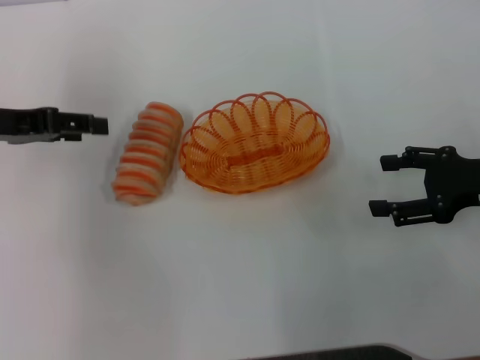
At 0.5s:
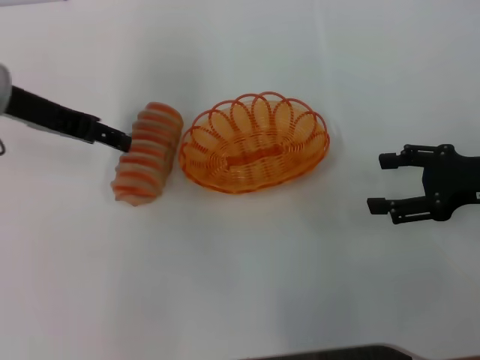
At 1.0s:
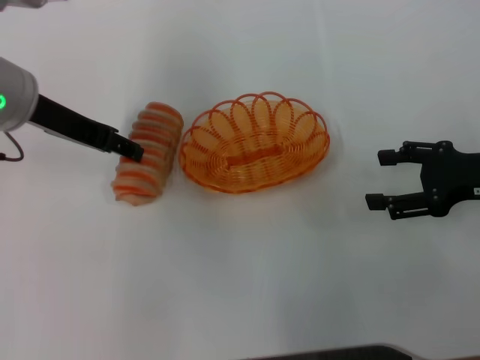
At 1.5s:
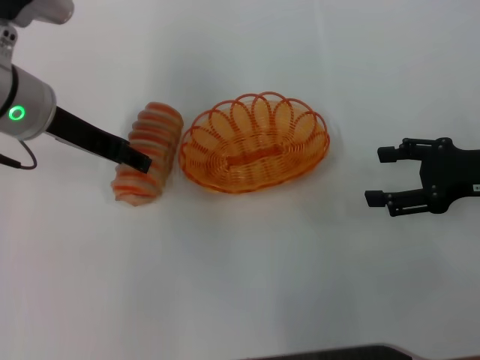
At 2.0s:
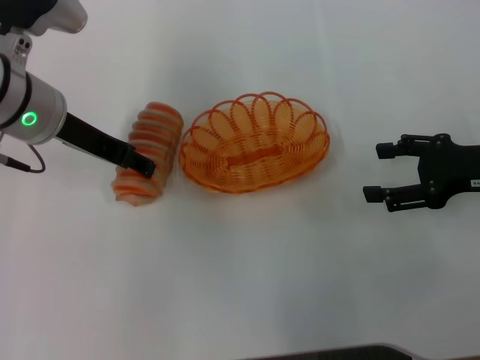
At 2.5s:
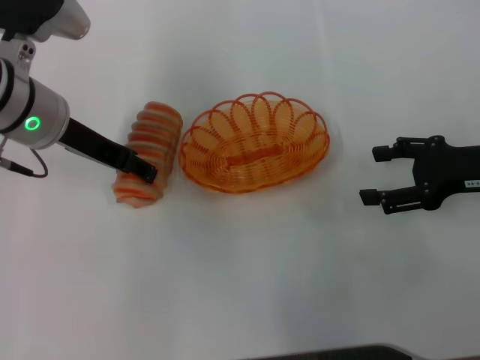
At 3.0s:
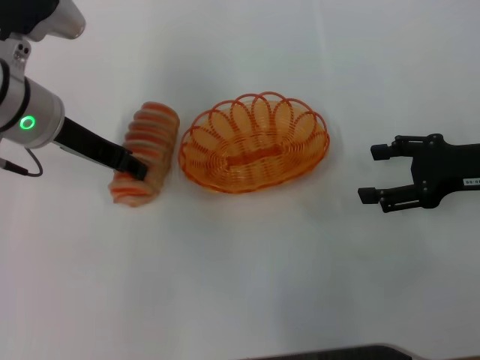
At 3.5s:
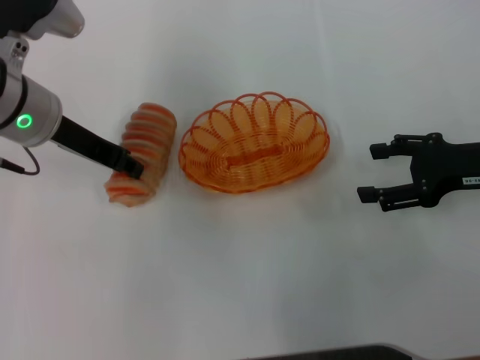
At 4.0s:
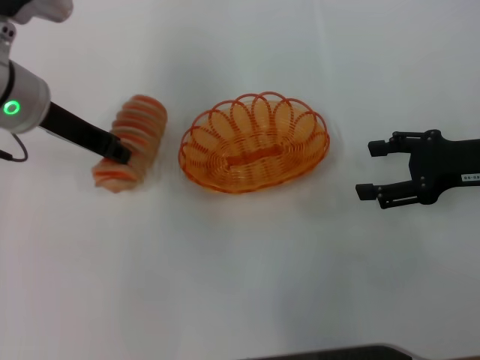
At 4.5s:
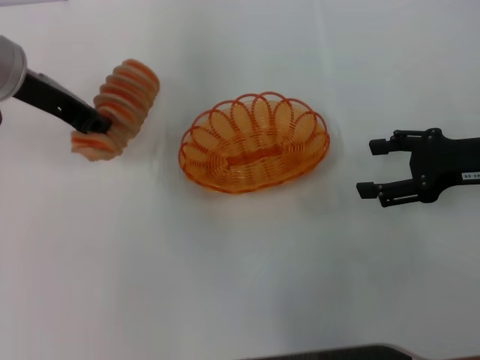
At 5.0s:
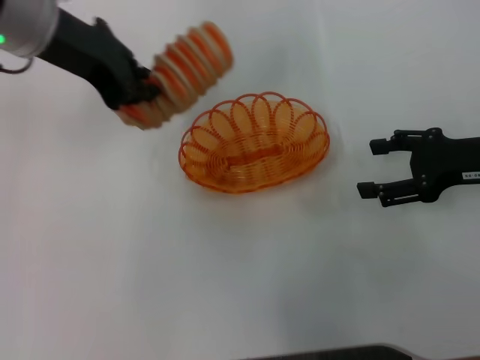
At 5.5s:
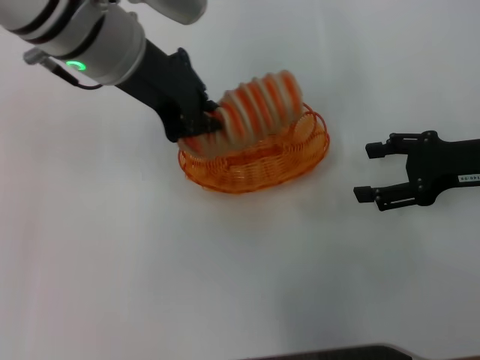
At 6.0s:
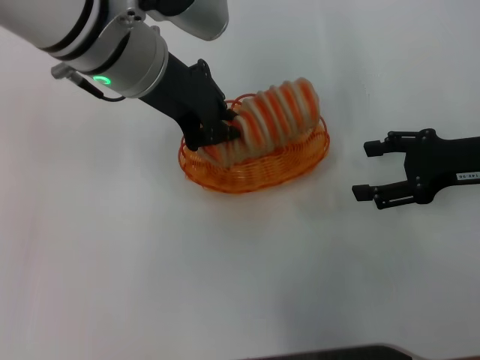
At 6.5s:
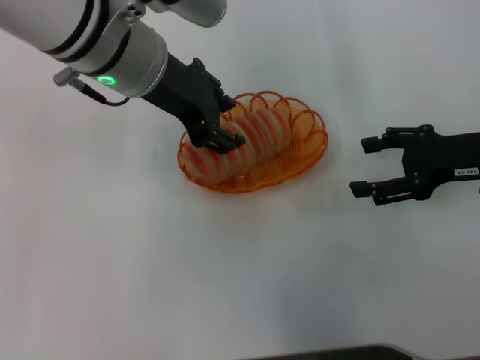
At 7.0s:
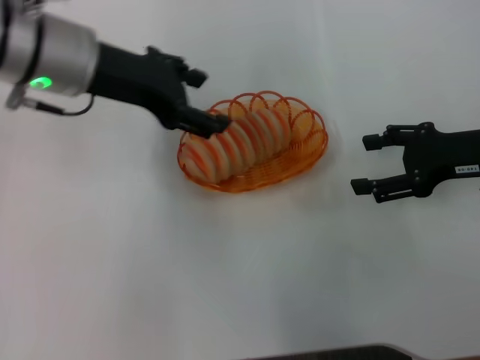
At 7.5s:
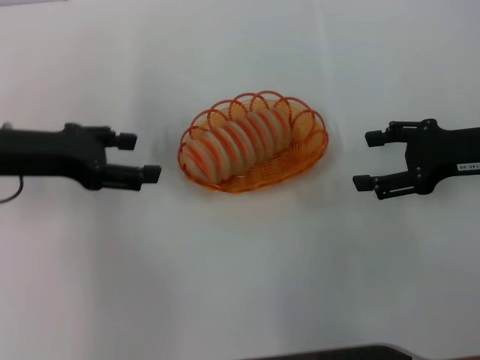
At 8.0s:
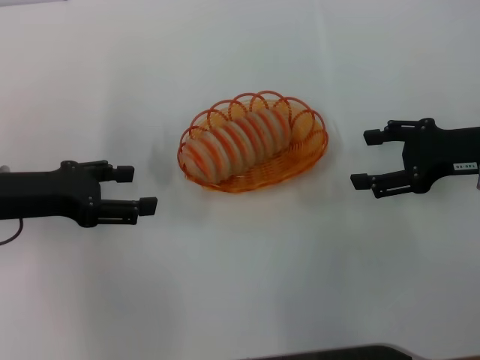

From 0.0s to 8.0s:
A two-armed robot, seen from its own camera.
Step, from 0.0s to 4.0s: Pick up the long bread with the left gripper.
Step, from 4.5s to 7.0s: Place the long bread into the basket with the left gripper.
From 0.0s to 2.0s: The left gripper heads to the right, covering some 10 cm.
From 2.0s to 4.0s: The left gripper closes its fingers.
From 4.0s to 6.0s: The left gripper heads to the right and upward, covering roughly 10 cm.
From 6.0s to 8.0s: The left gripper moves to the left and downward, some 20 cm, and opens.

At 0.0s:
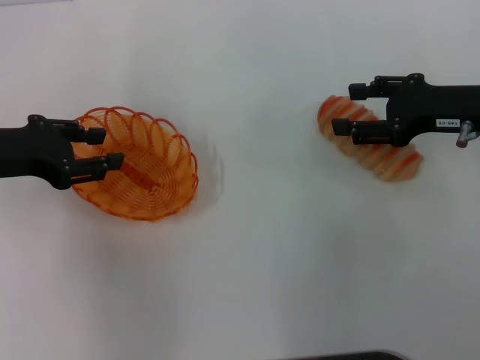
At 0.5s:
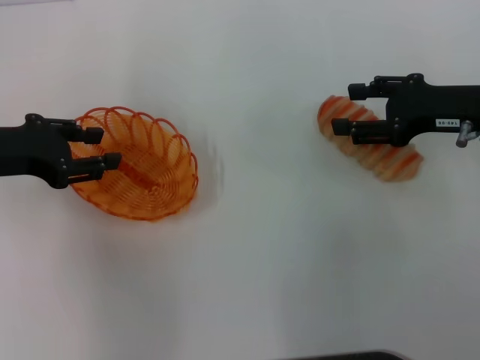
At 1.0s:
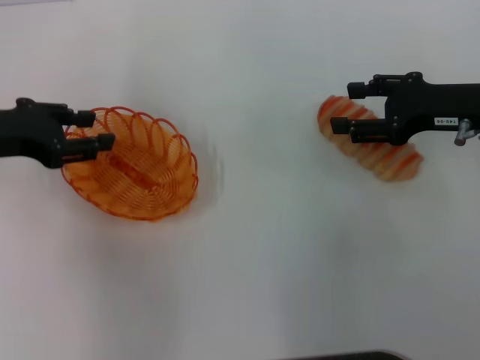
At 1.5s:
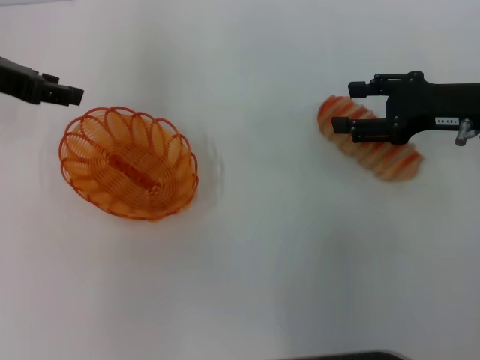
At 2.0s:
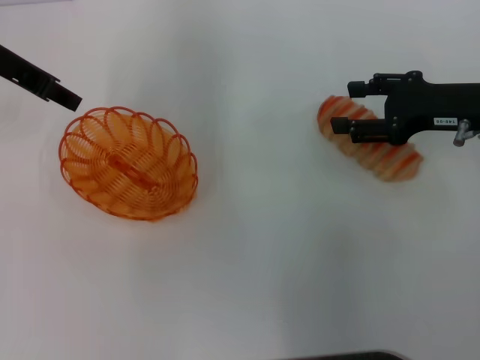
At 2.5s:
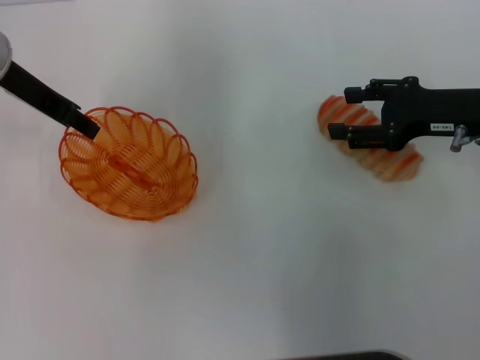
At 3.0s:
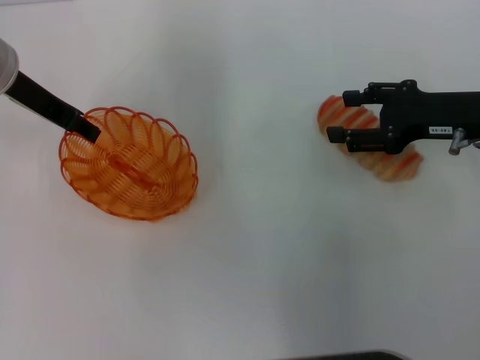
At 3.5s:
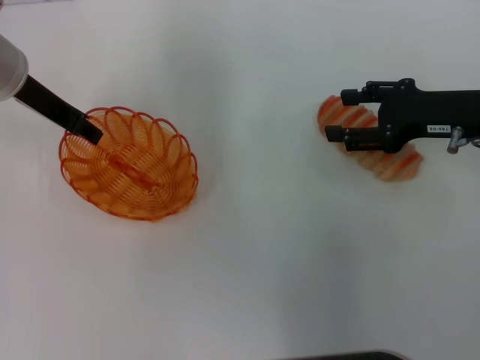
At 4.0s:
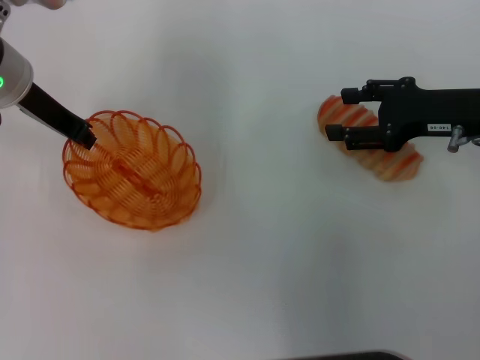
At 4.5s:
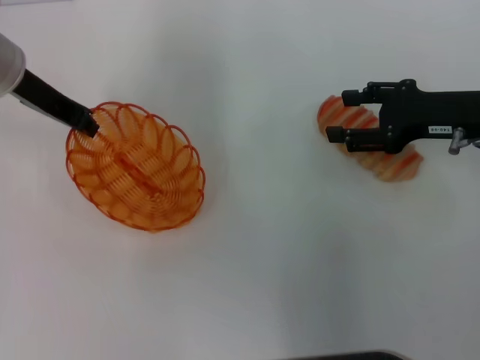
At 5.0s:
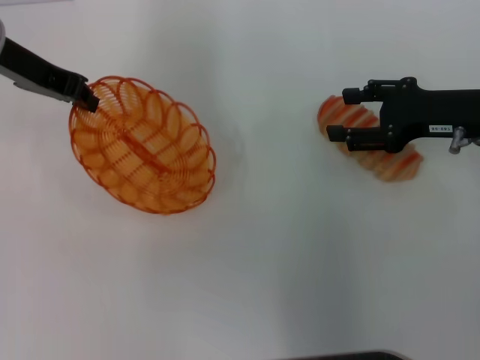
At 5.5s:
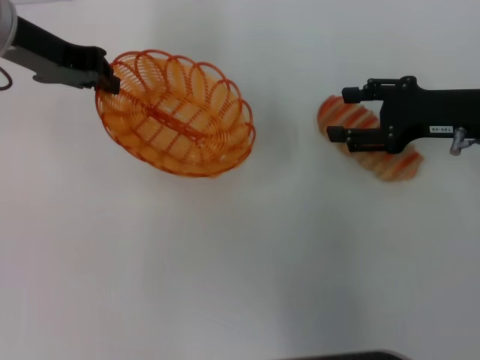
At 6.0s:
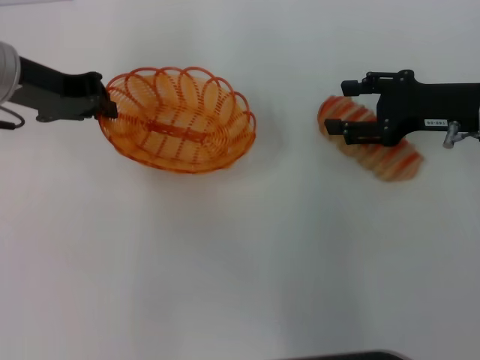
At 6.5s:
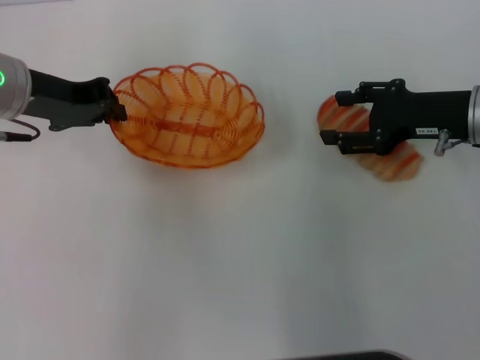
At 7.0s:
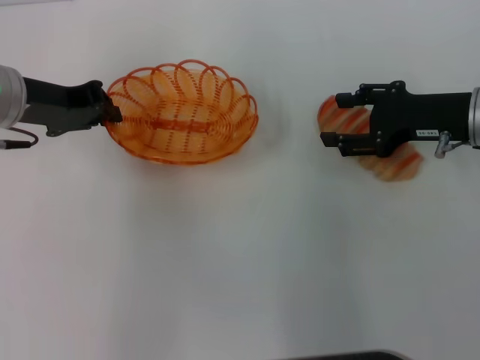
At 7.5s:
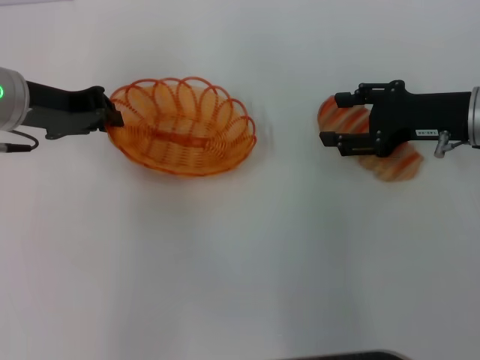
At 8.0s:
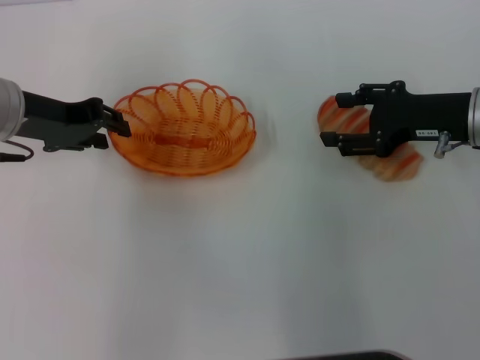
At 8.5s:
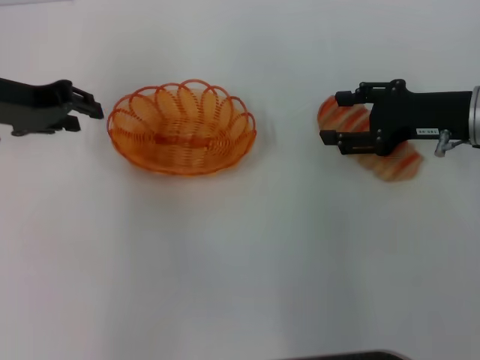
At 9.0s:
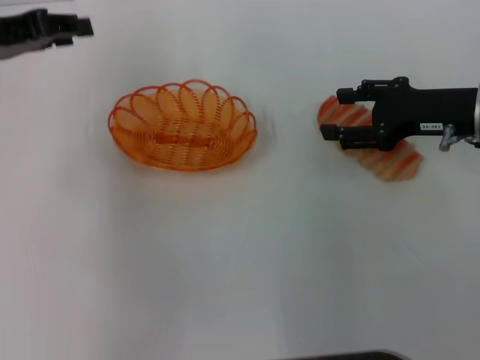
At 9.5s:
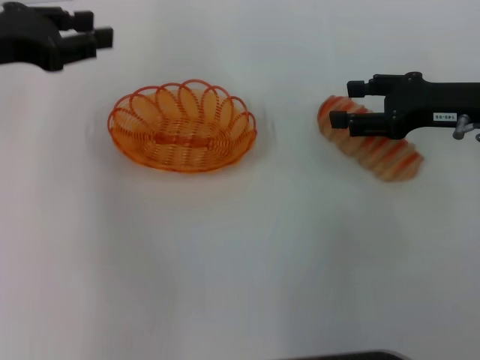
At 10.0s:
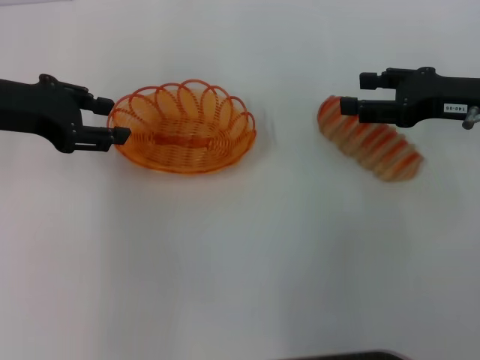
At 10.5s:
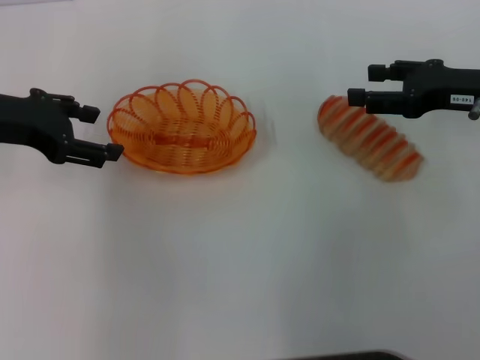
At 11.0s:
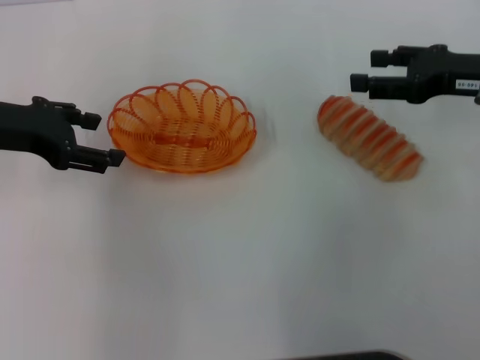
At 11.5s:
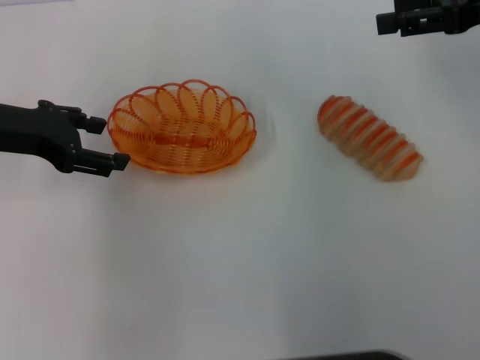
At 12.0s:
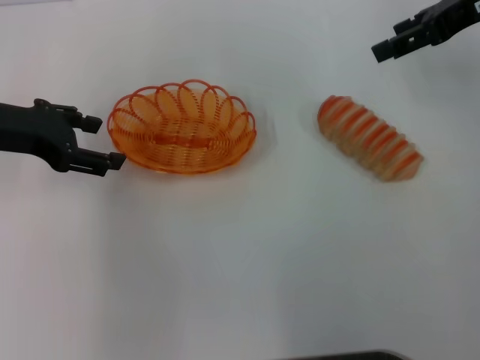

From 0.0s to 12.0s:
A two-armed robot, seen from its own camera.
Step, from 0.0s to 4.5s: Pick up the basket with the left gripper.
Step, from 5.0s to 8.0s: Place the basket in the center of view with the left gripper.
From 0.0s to 2.0s: The left gripper shifts some 10 cm forward and upward.
From 2.0s to 4.0s: The left gripper goes approximately 5 cm downward.
From 6.0s to 8.0s: There are only small adjustments of the grippers.
From 10.0s to 12.0s: The right gripper heads upward and forward, covering about 15 cm. The left gripper opens.

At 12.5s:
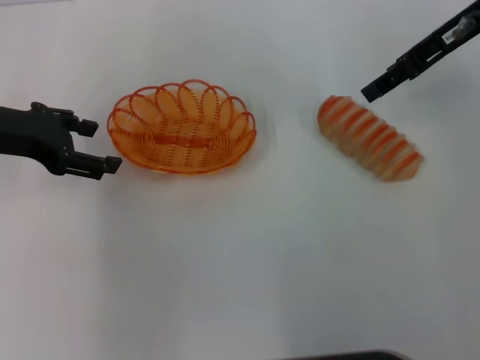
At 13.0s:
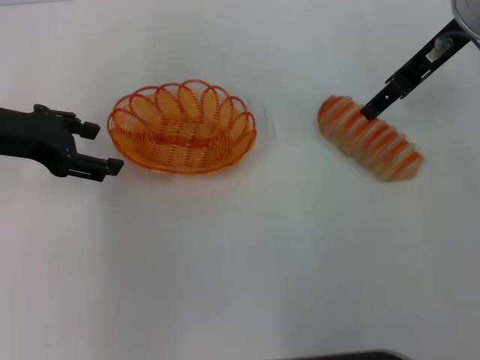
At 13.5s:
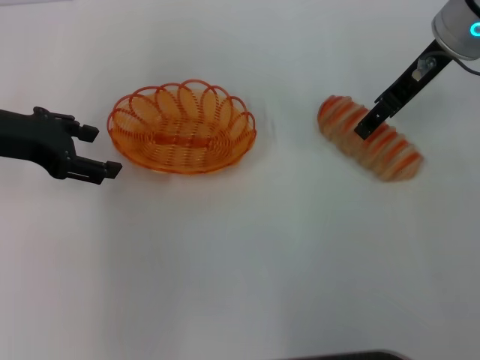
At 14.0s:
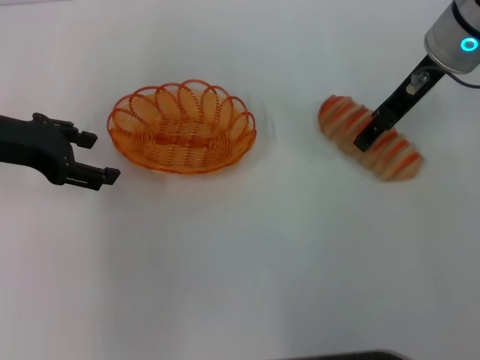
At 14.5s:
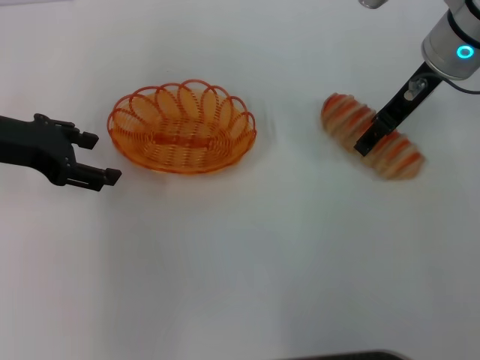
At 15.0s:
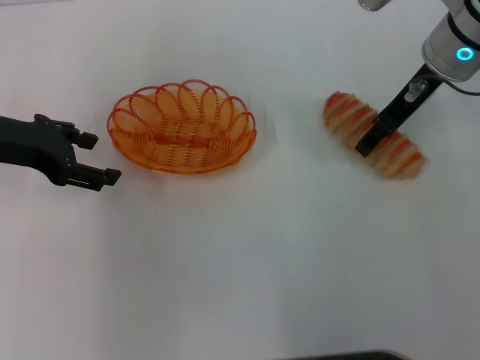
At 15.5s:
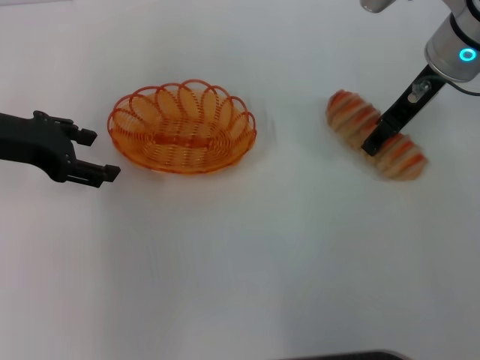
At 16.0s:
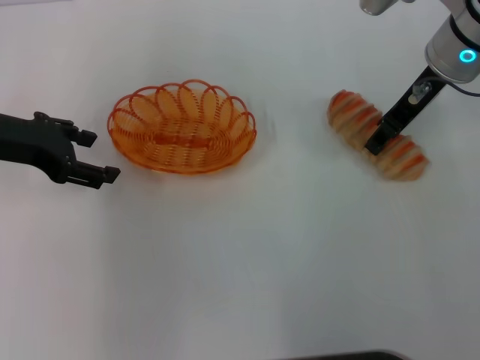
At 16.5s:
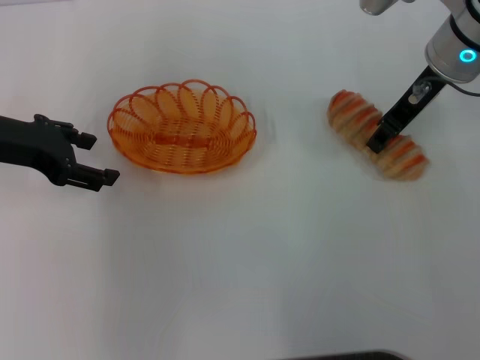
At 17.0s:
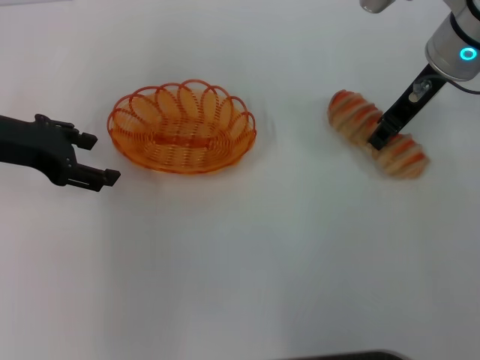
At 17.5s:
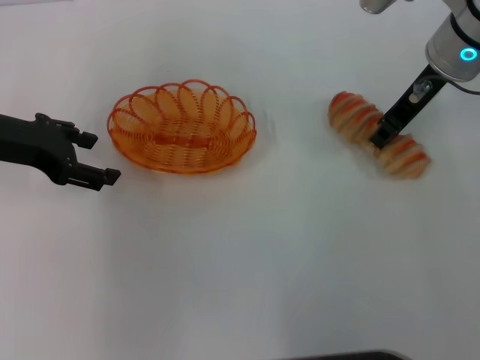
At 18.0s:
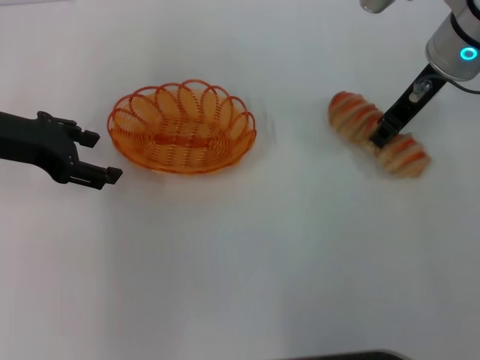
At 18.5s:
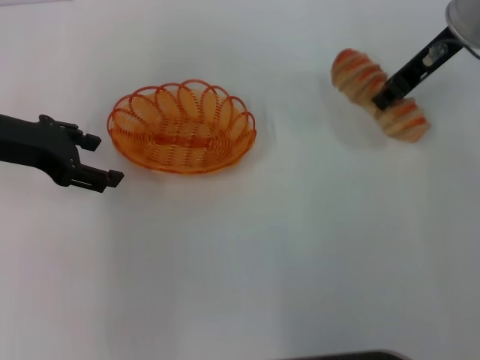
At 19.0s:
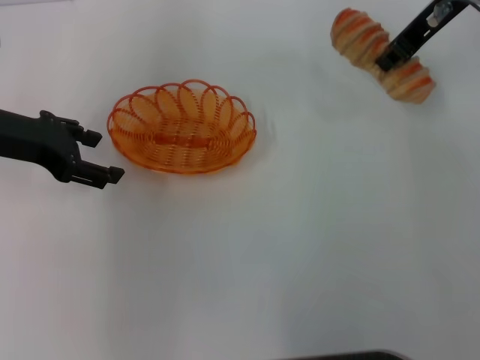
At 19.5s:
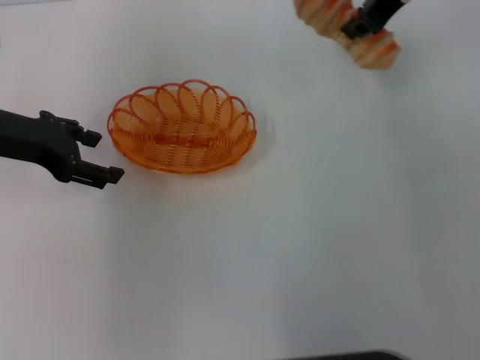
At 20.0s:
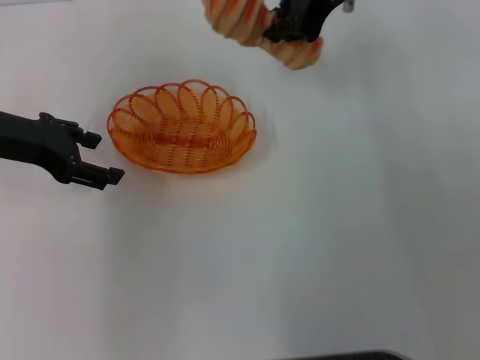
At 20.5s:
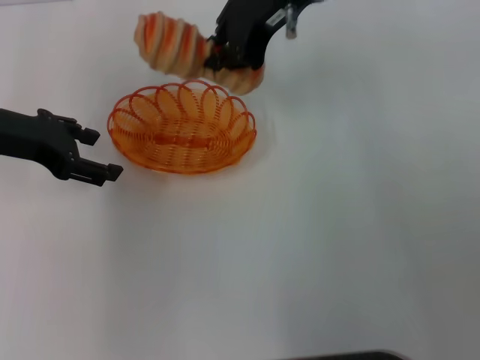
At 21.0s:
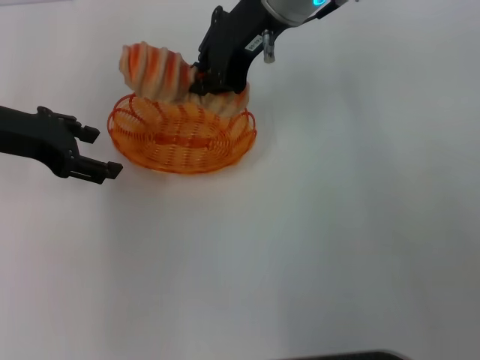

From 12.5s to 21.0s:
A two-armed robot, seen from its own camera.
Step, from 12.5s to 18.0s: Pick up the long bread with the right gripper.
From 12.5s to 14.5s: The right gripper goes some 5 cm downward.
From 14.5s to 16.5s: Both grippers stay put.
From 16.5s to 19.0s: The right gripper heads upward, covering roughly 5 cm, and closes up.
From 19.0s to 21.0s: The right gripper travels to the left by about 15 cm.
